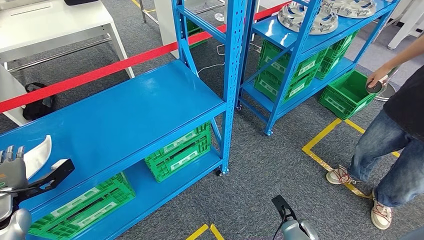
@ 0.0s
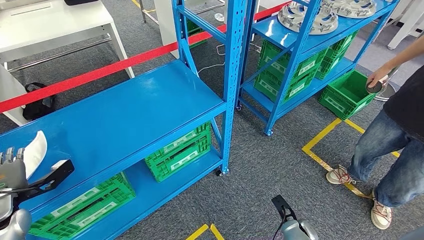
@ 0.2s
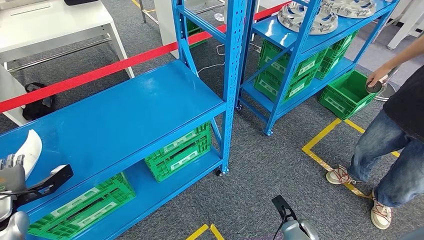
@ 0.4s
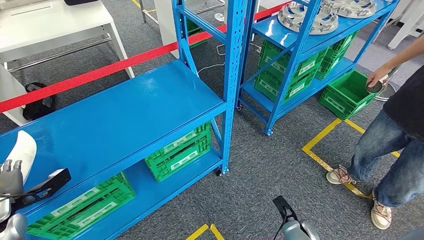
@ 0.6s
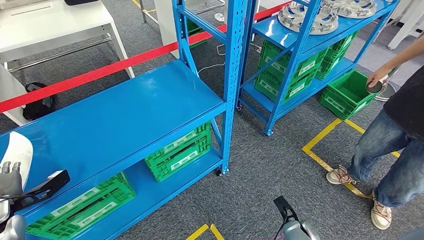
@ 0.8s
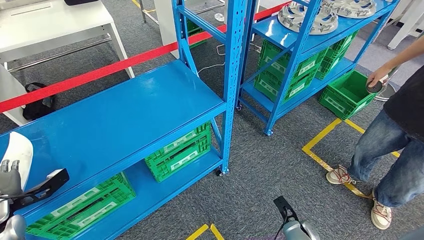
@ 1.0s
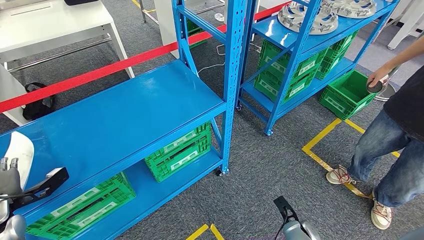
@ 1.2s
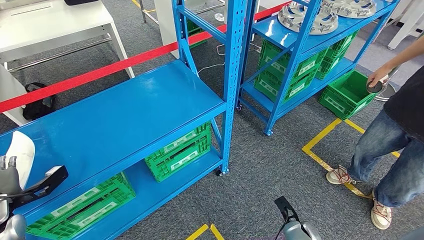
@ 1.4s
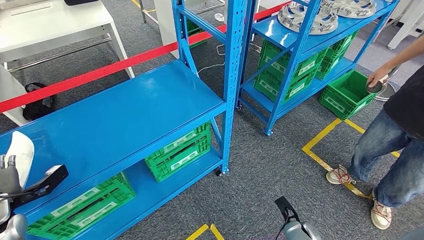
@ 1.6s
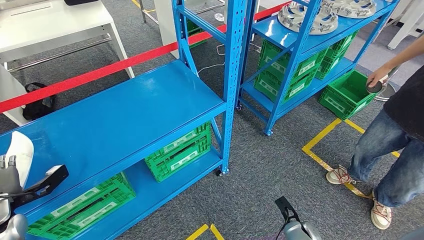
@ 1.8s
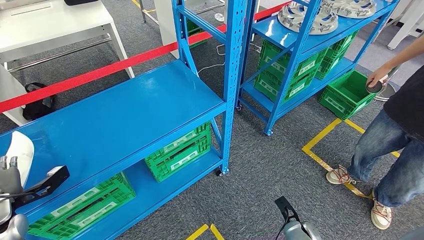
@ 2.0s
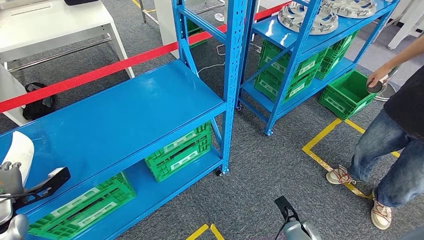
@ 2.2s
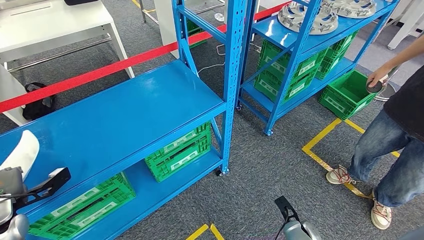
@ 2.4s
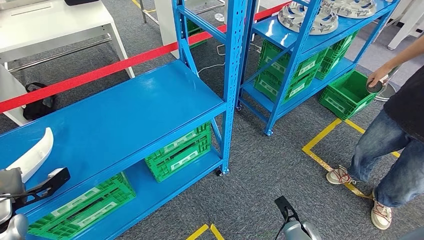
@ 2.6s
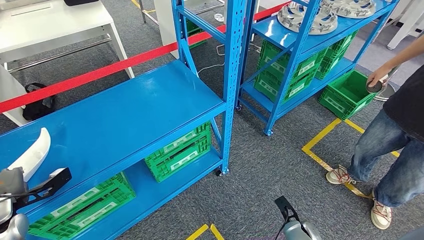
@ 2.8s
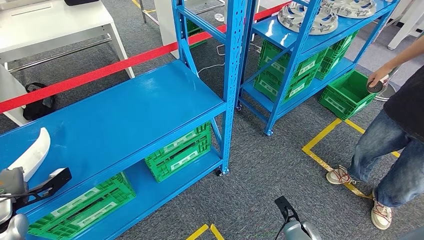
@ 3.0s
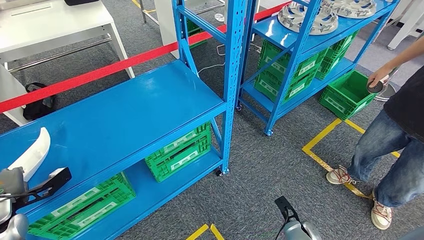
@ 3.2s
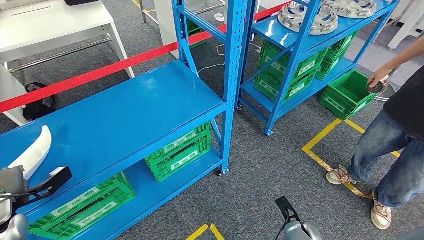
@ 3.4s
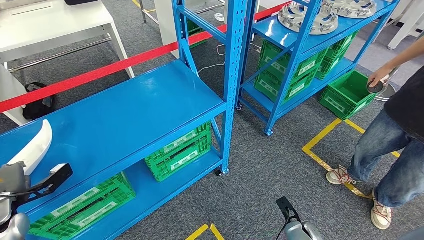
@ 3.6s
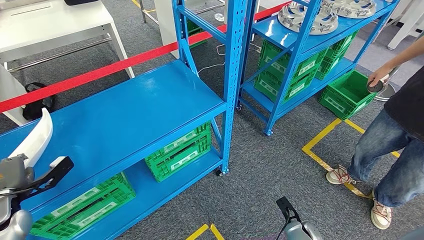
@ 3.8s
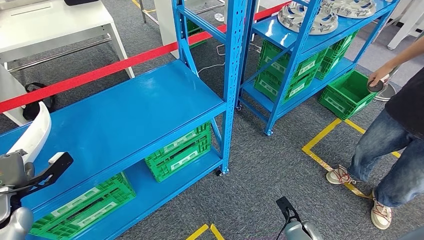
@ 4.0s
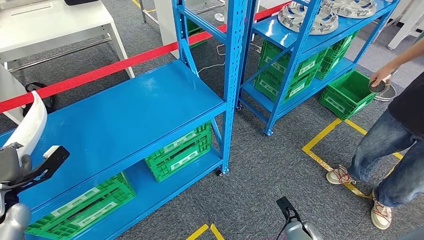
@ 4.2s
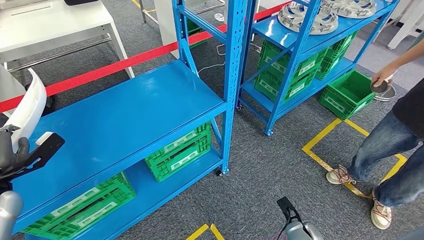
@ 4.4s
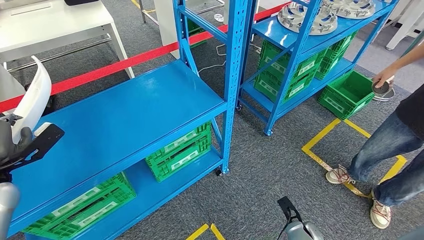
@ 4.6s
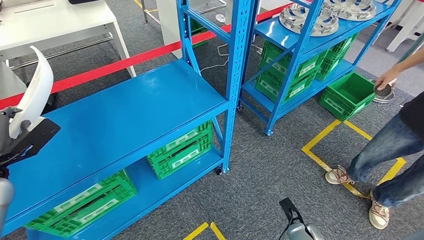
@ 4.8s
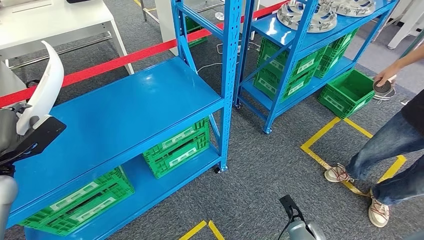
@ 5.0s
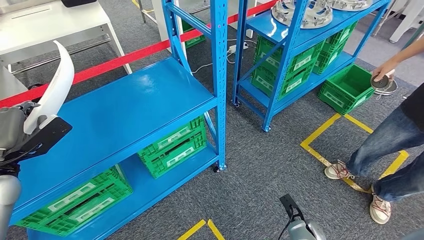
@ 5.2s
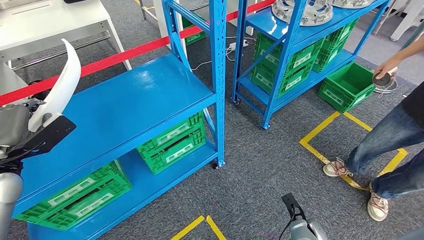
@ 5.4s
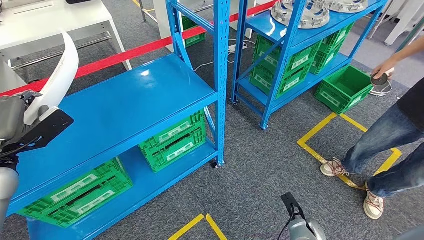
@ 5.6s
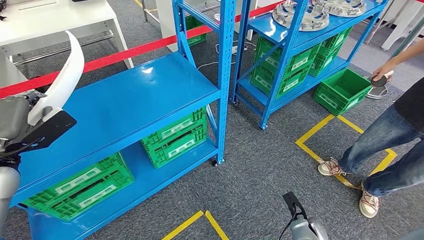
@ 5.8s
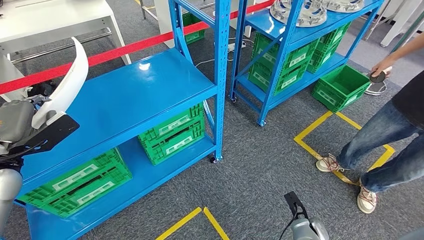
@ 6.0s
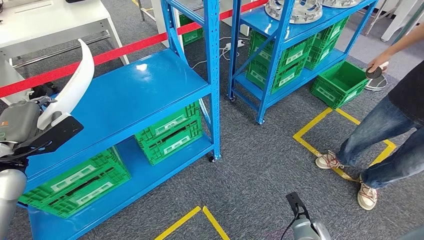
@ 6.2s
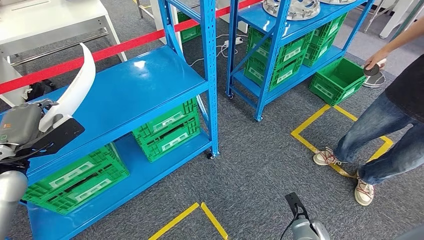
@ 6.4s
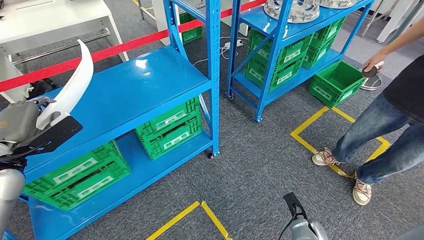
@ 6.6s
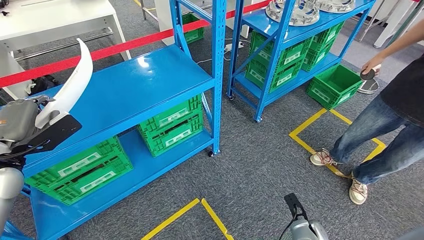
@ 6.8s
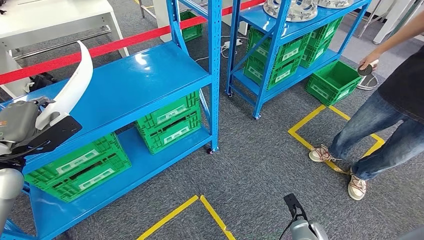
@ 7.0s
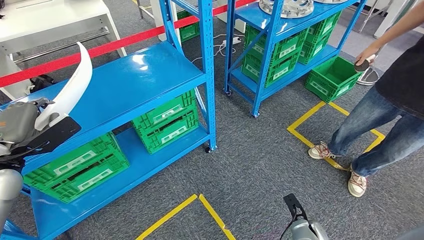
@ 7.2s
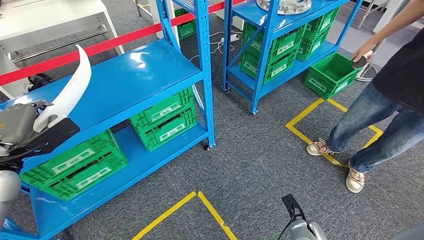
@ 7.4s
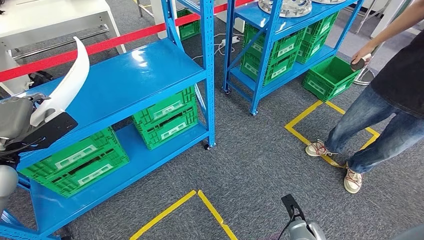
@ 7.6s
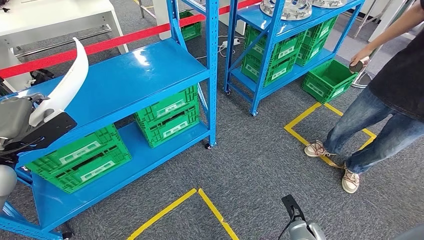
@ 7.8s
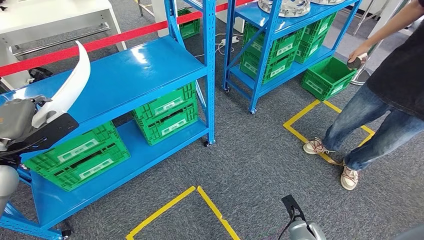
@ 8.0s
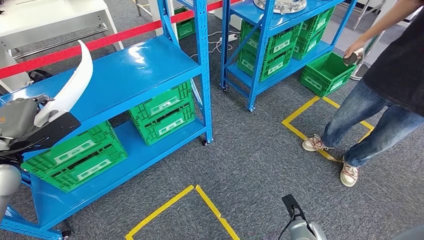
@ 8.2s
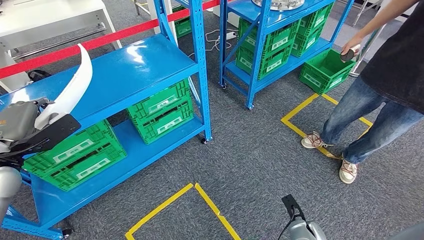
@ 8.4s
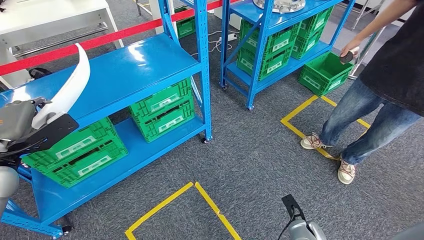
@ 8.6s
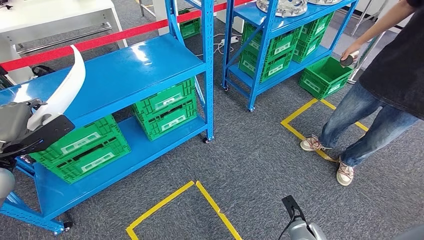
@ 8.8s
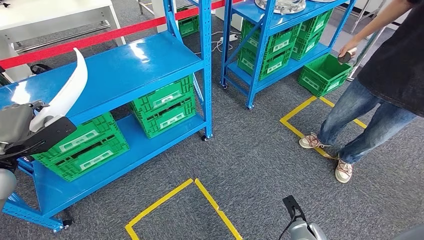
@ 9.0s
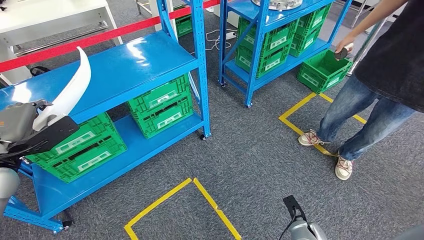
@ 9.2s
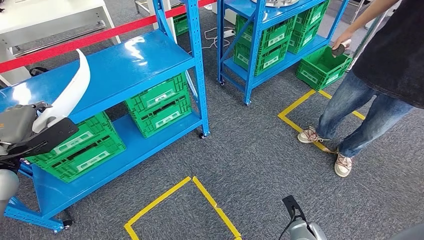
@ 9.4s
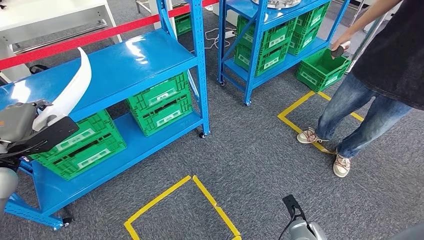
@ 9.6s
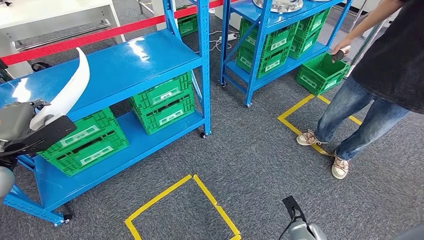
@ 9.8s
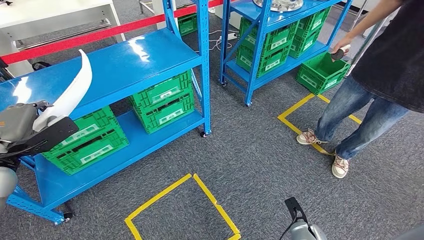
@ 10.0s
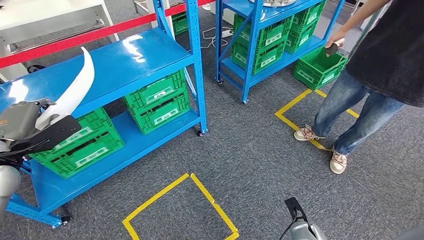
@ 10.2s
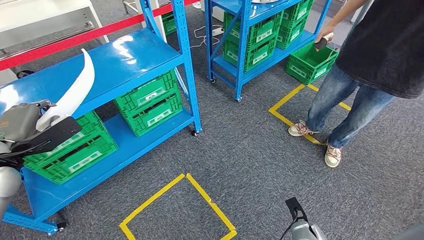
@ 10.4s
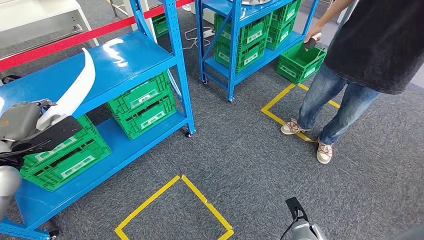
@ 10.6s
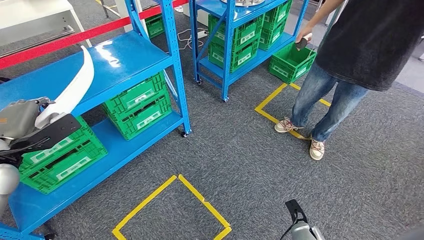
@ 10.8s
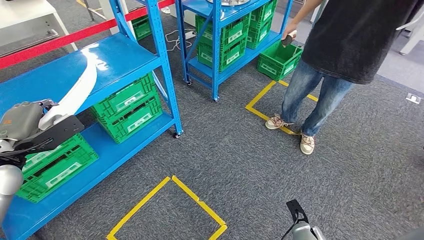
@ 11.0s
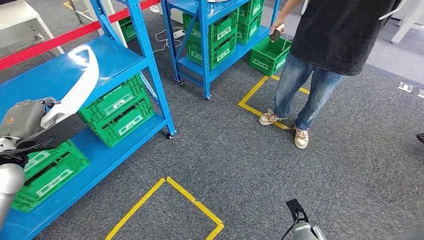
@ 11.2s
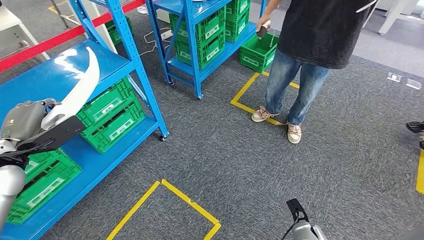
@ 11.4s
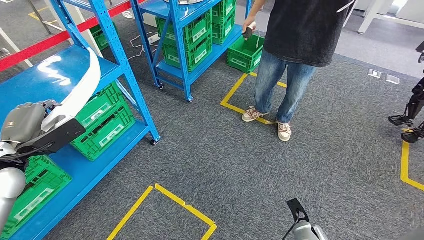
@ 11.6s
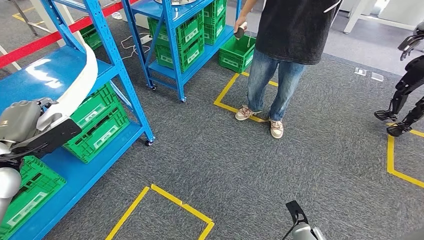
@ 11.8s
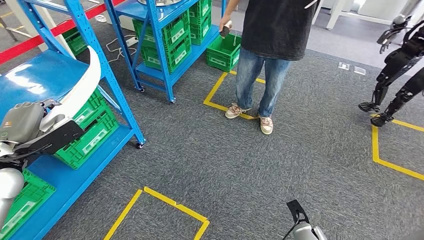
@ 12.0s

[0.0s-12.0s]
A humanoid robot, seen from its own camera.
Step, 0.0s to 5.0s: Pick up the small parts from the shelf.
0.0s to 1.6s: There are only small adjustments of the hands.
1.6s to 3.0s: Both hands stay about where they are.
3.0s to 4.4s: The left hand travels upward by some 5 cm.

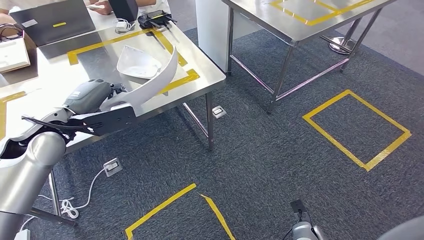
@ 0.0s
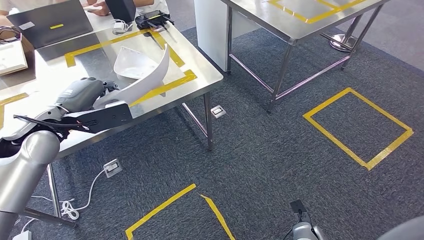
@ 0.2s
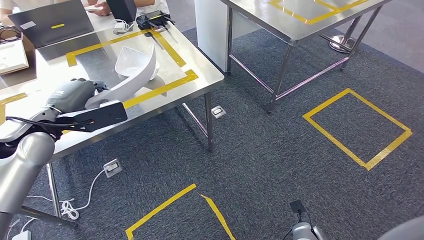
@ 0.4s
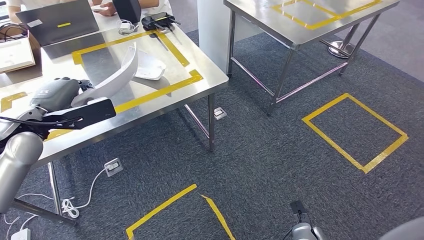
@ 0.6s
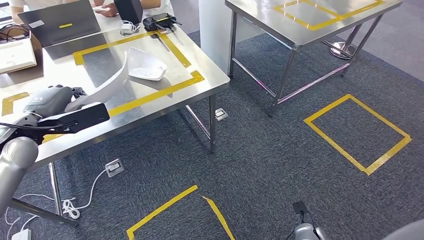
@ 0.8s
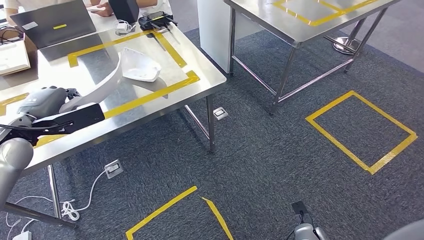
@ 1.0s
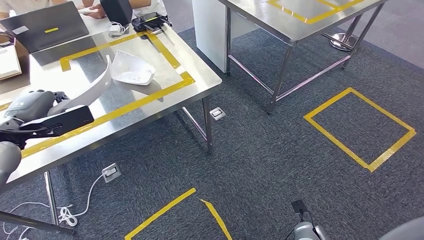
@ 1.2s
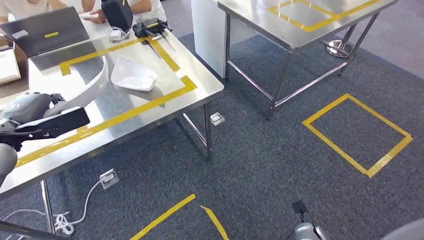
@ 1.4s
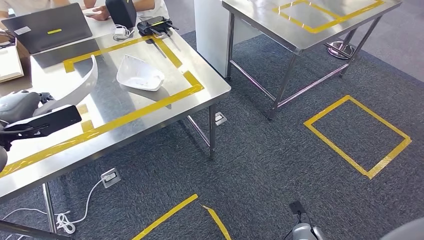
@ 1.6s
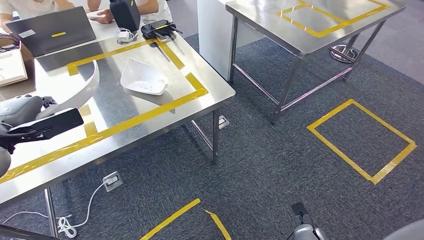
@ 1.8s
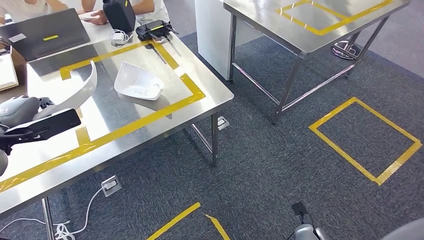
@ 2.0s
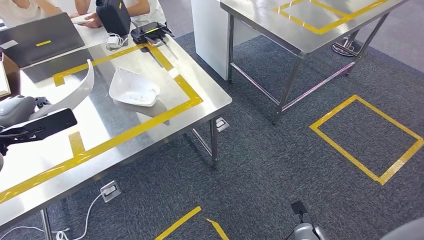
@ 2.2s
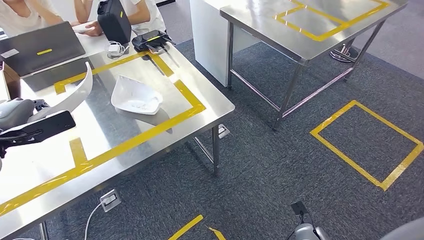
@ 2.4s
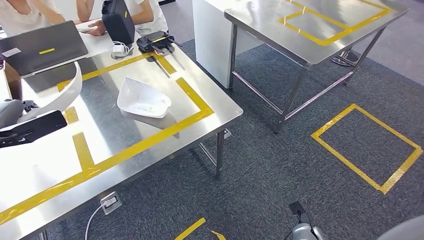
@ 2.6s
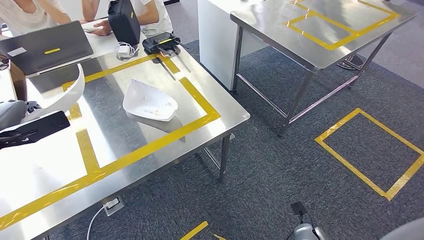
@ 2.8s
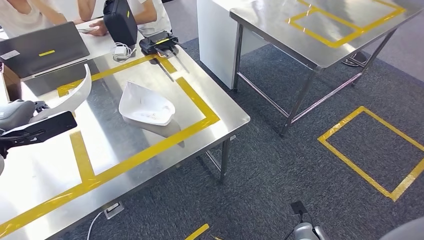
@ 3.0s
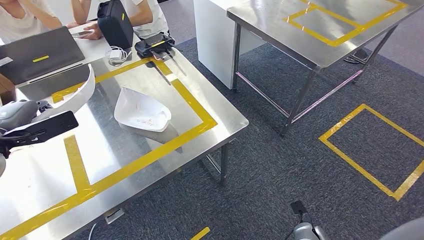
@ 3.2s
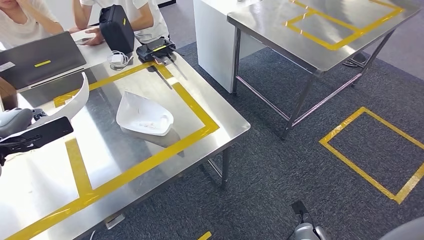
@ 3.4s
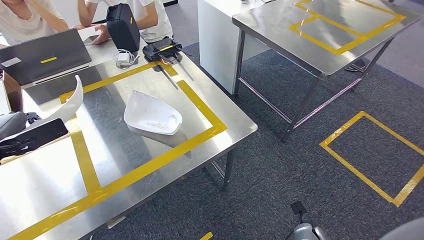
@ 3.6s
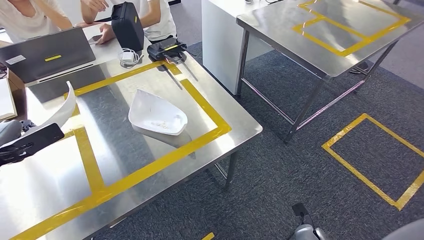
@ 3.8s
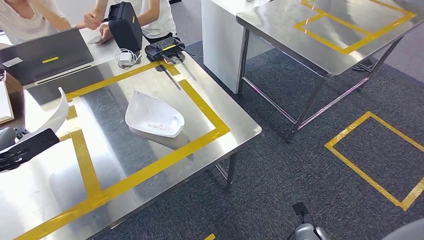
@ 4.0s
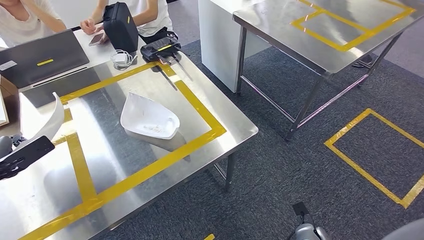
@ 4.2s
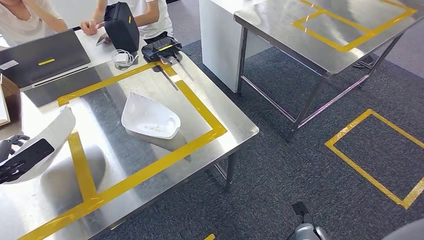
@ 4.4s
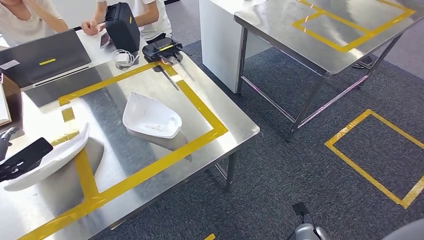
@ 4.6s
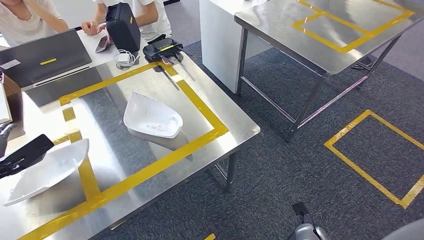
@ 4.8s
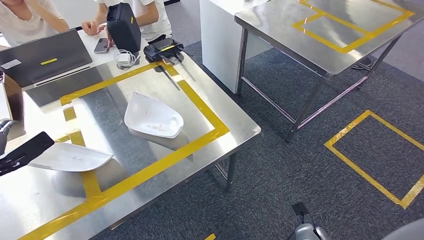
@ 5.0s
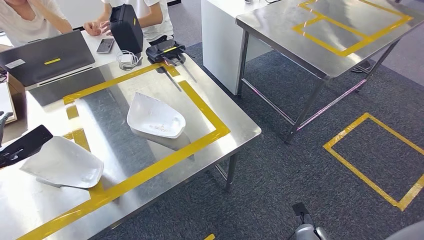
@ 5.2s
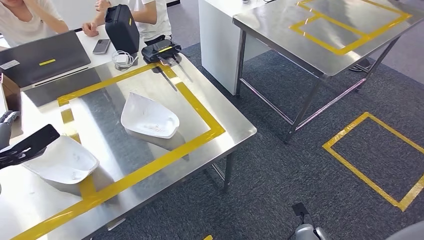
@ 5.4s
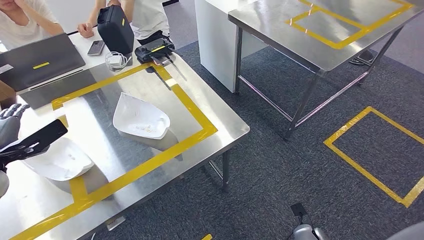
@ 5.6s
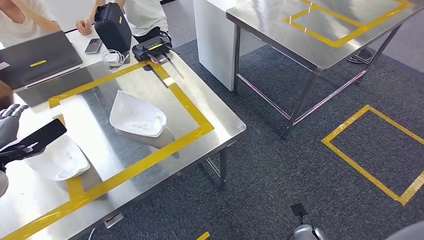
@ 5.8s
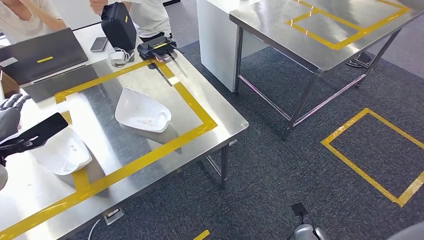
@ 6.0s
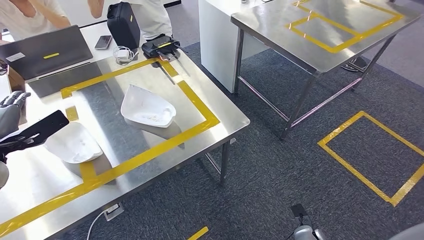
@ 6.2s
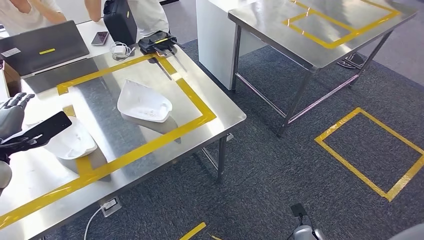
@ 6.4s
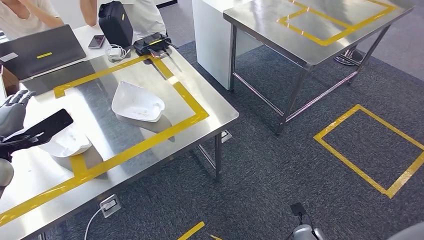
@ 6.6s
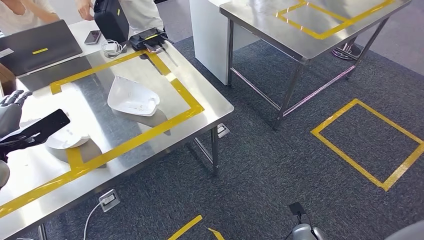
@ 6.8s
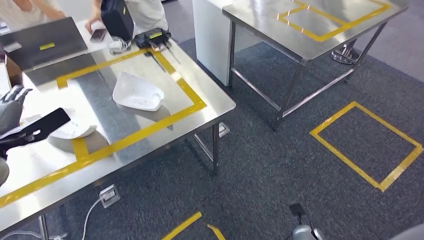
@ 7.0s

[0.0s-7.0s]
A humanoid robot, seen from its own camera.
Step, 0.0s to 2.2s: Move the small parts to the workbench.
Step, 2.6s to 5.6s: Insert the small parts into the corresponding slots on the workbench.
